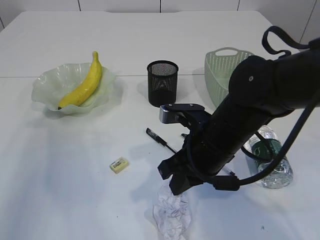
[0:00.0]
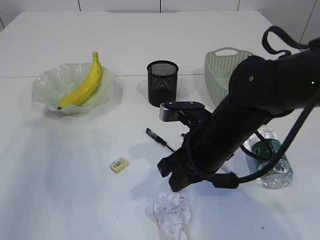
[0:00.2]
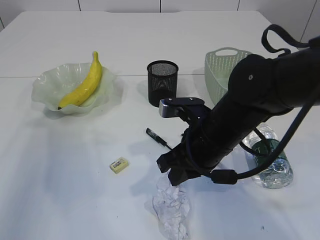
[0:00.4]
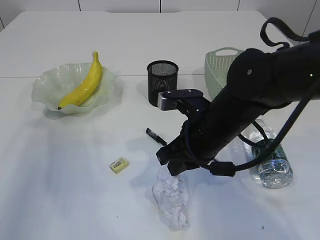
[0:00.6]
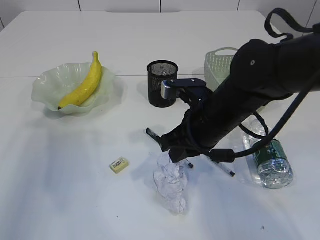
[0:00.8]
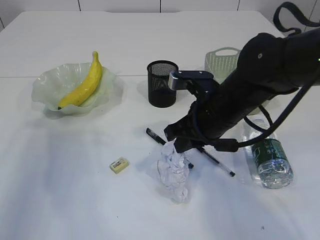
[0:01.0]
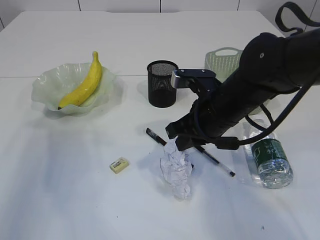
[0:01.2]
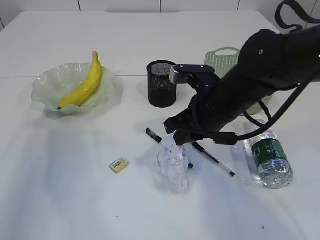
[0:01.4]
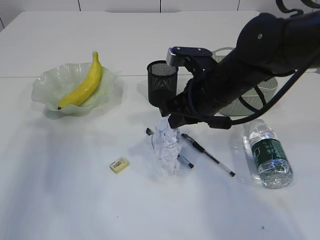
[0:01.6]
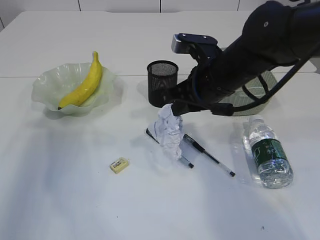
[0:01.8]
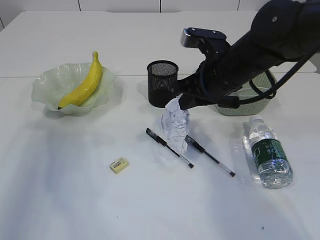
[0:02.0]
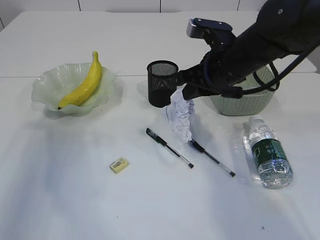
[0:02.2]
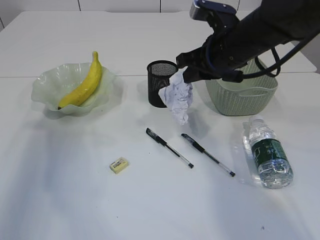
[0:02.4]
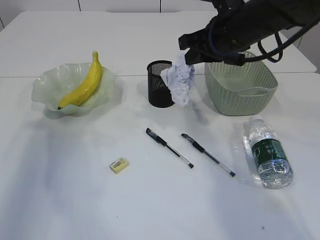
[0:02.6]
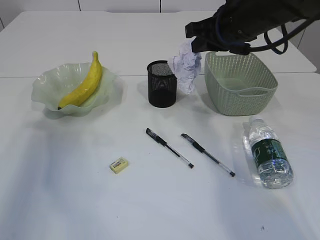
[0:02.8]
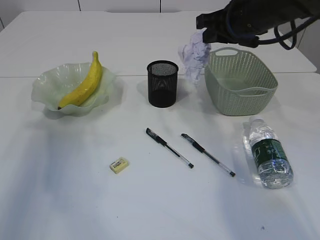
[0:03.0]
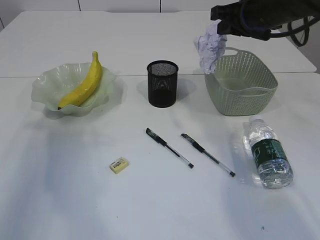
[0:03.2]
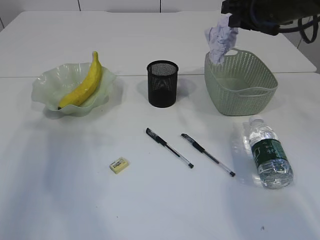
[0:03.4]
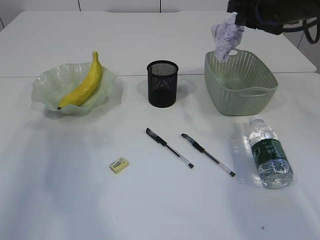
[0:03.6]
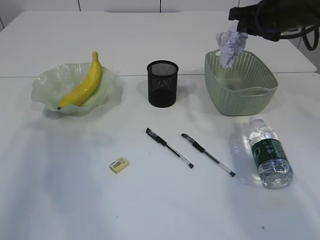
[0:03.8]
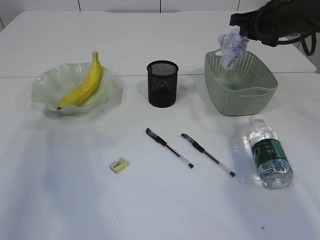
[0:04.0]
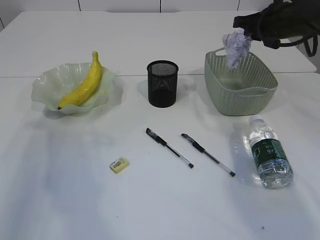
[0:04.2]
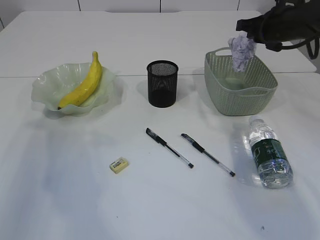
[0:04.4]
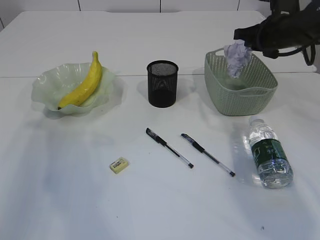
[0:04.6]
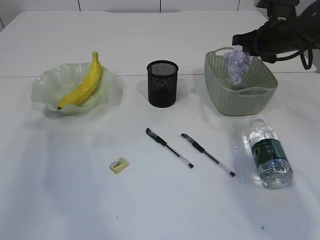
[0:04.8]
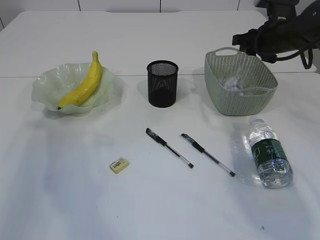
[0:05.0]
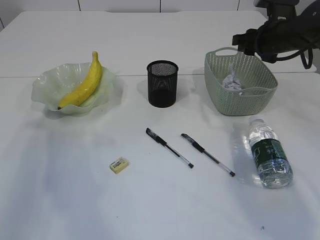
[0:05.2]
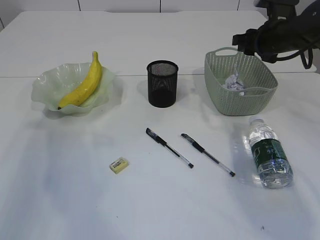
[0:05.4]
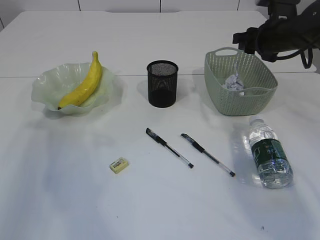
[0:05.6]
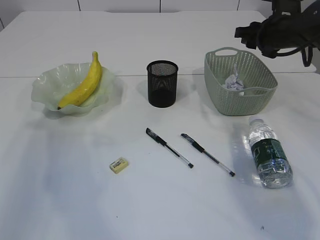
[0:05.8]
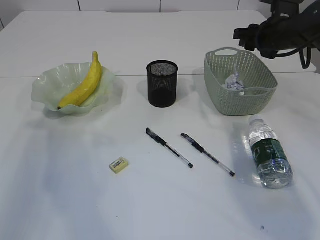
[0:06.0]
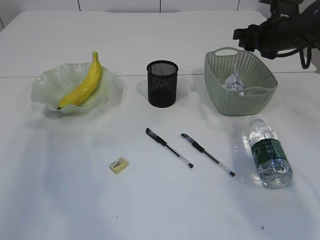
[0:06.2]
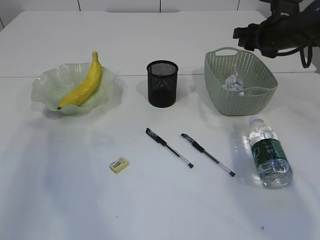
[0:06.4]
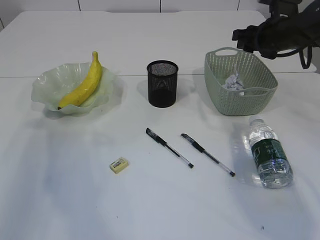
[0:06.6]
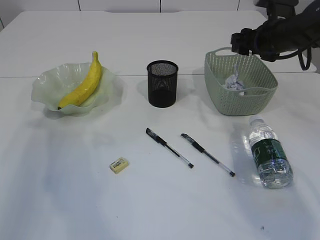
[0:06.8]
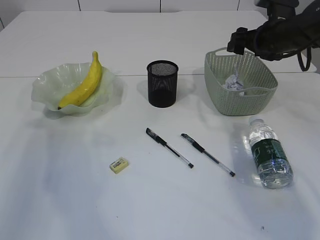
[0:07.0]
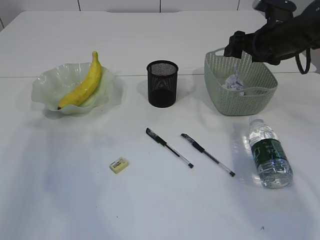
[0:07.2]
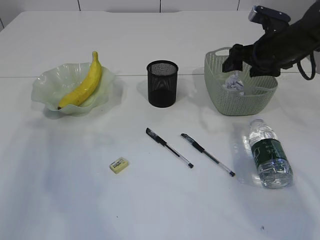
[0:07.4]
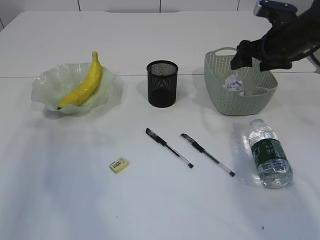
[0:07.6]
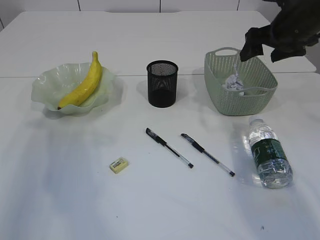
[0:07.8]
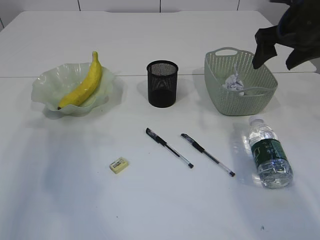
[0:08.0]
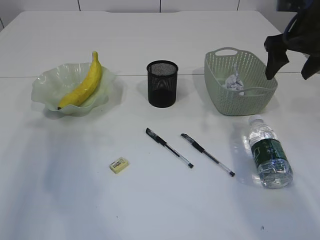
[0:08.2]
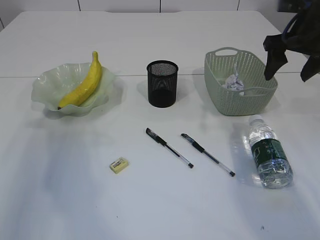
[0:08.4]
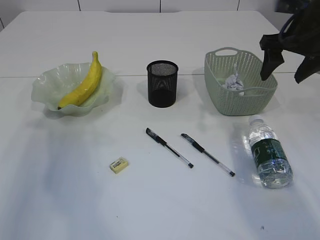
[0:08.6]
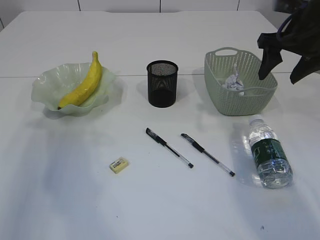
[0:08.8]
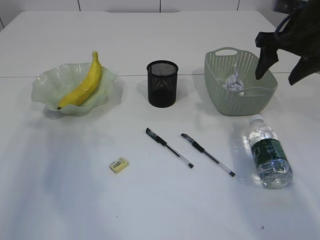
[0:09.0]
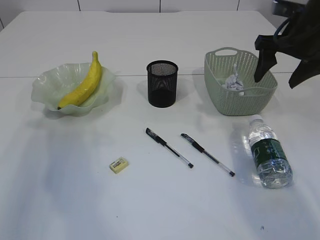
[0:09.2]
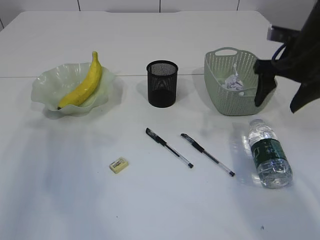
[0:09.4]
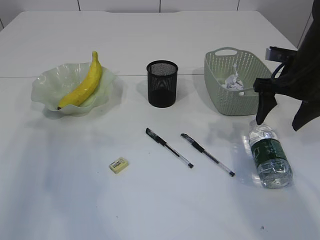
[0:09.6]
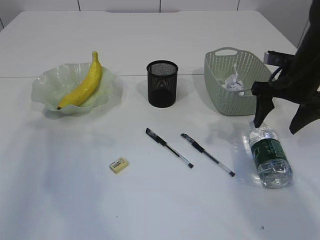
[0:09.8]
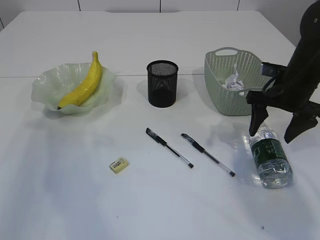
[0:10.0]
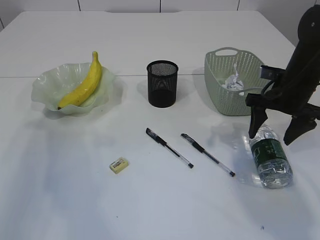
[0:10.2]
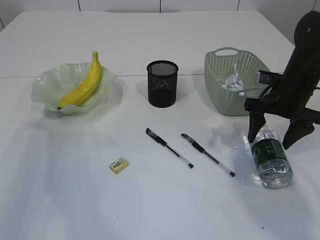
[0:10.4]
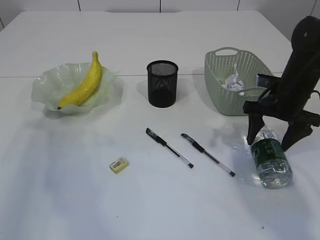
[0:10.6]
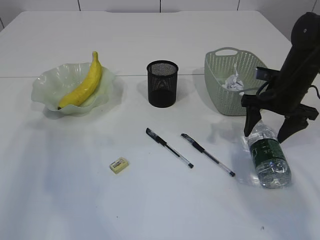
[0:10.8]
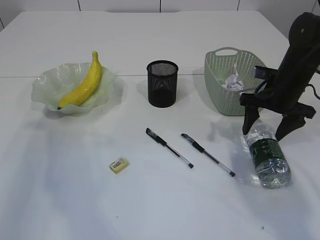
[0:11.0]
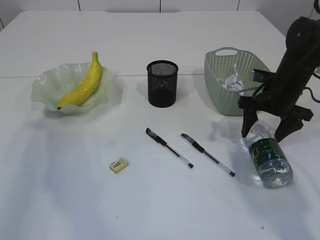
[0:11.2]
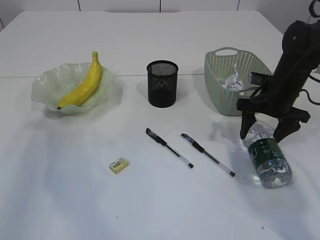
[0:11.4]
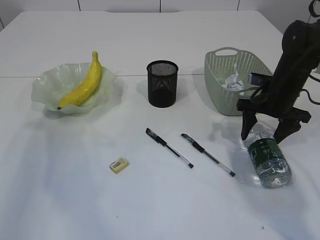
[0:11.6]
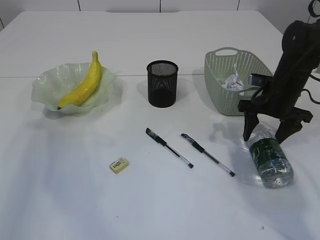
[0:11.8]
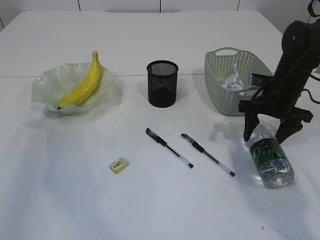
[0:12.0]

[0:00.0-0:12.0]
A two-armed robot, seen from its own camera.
Step, 0:01.6 to 0:05.6: Place the waste paper in the basket.
0:00.0 to 0:01.6: The right gripper shifts about 5 cm forward.
0:01.6 to 0:03.0: The right gripper shifts approximately 15 cm upward, forward and to the right.
0:03.0 to 0:04.4: The right gripper travels to the right by approximately 10 cm.
0:04.4 to 0:06.0: The right gripper opens.
0:06.0 to 0:07.6: The right gripper opens its fingers.
0:07.6 to 0:09.0: The right gripper is displaced upward by some 5 cm.
0:09.0 to 0:10.4: The right gripper moves downward, roughly 10 cm.
0:10.4 to 0:12.0: The grippers make only small movements.

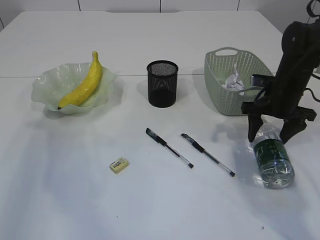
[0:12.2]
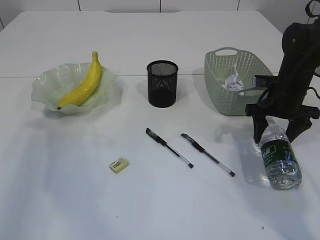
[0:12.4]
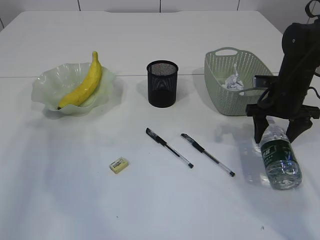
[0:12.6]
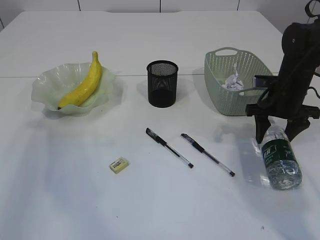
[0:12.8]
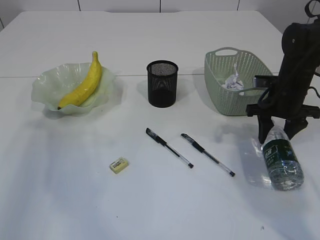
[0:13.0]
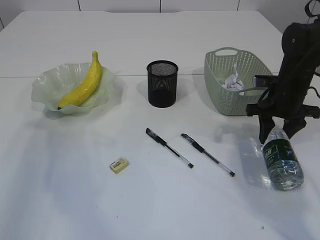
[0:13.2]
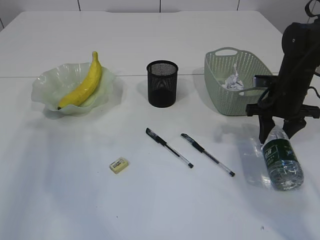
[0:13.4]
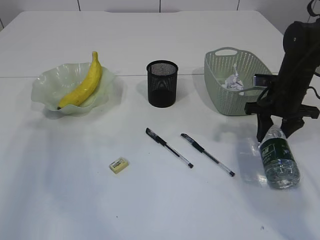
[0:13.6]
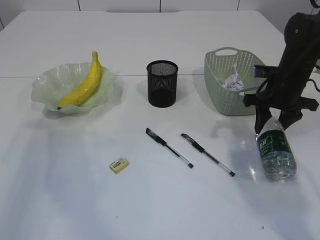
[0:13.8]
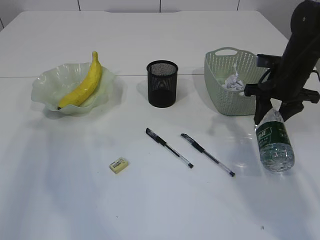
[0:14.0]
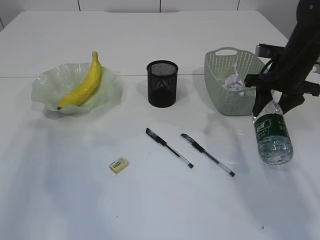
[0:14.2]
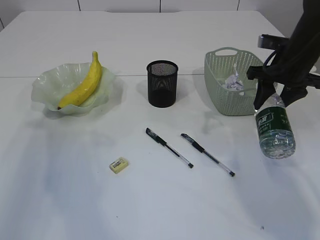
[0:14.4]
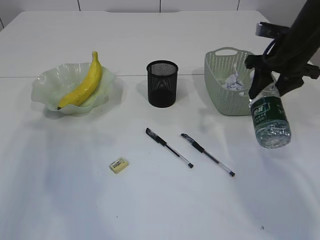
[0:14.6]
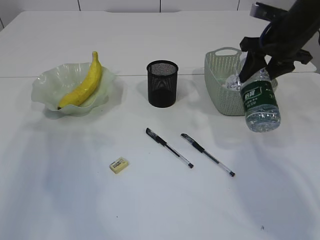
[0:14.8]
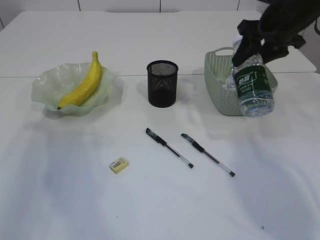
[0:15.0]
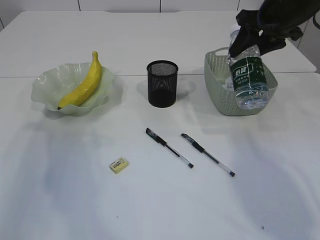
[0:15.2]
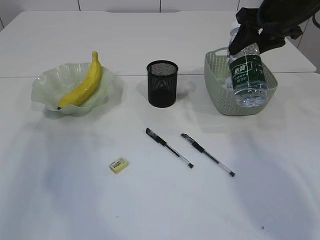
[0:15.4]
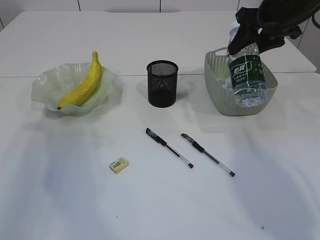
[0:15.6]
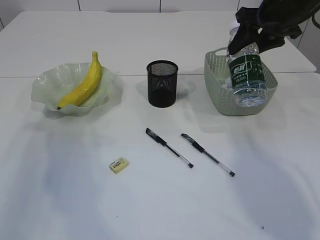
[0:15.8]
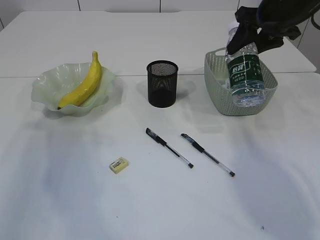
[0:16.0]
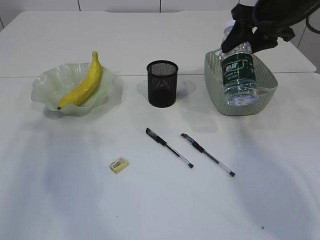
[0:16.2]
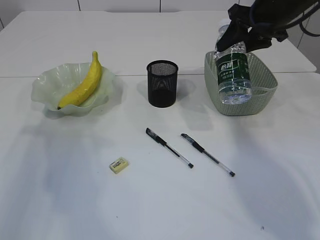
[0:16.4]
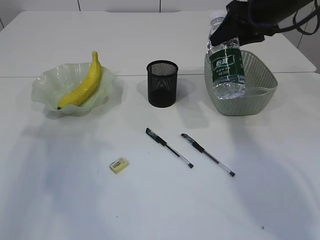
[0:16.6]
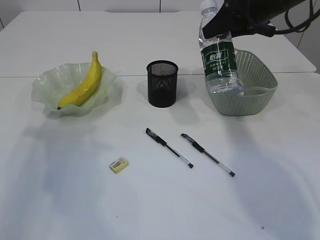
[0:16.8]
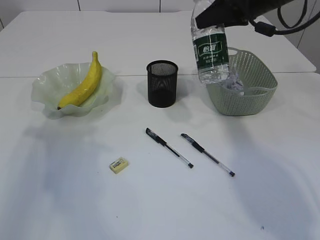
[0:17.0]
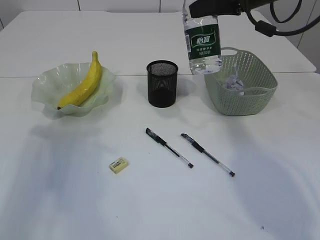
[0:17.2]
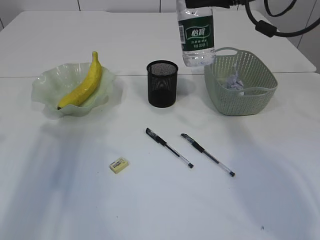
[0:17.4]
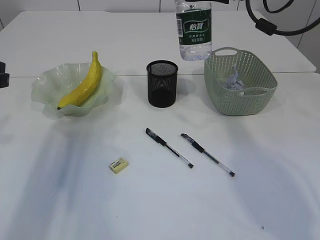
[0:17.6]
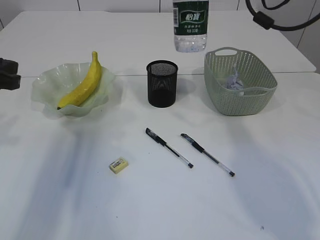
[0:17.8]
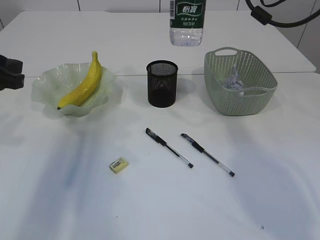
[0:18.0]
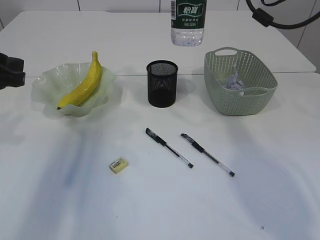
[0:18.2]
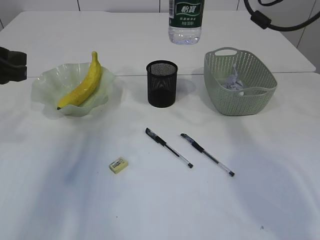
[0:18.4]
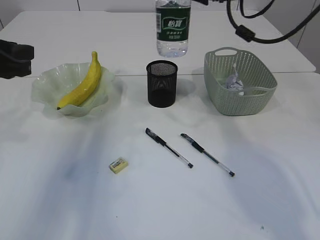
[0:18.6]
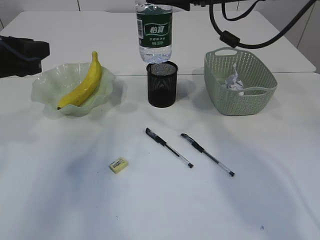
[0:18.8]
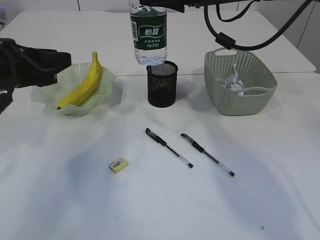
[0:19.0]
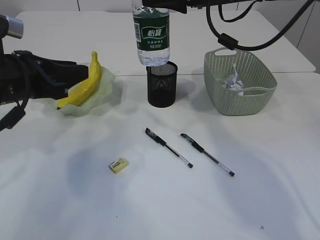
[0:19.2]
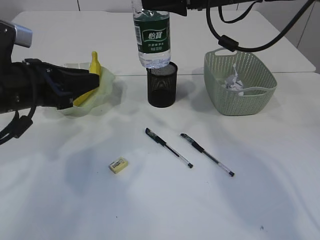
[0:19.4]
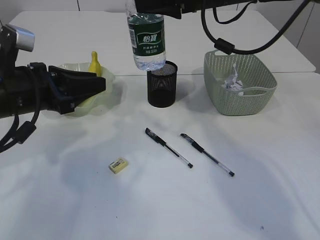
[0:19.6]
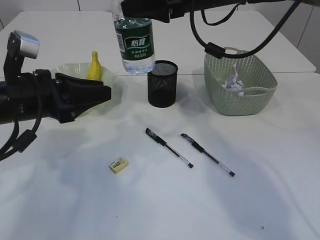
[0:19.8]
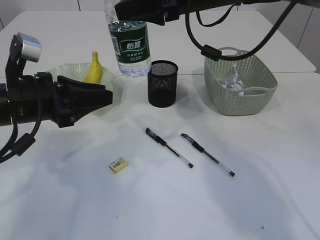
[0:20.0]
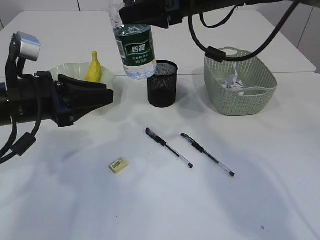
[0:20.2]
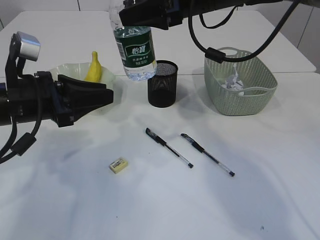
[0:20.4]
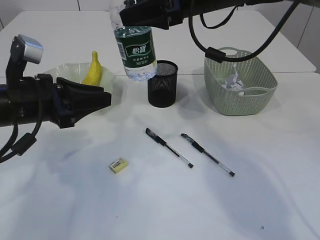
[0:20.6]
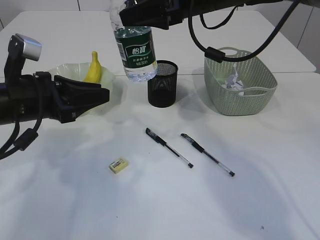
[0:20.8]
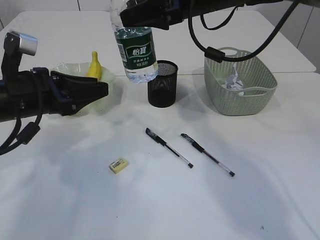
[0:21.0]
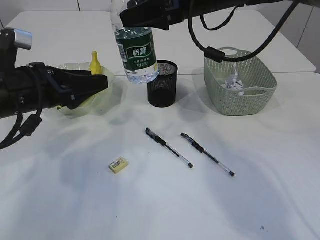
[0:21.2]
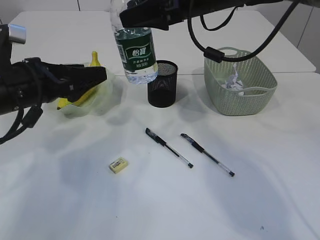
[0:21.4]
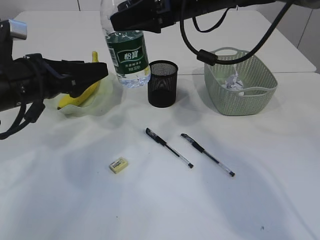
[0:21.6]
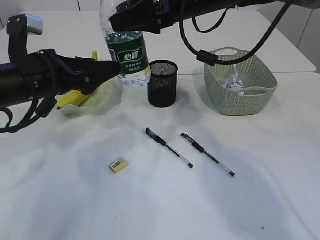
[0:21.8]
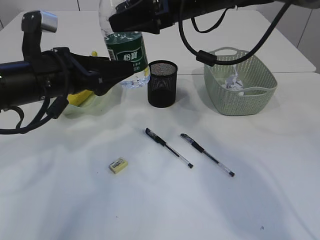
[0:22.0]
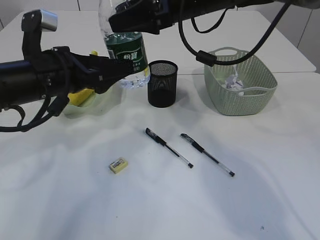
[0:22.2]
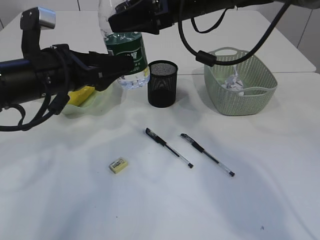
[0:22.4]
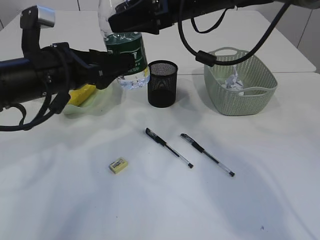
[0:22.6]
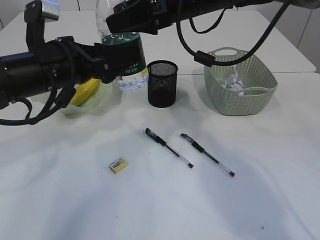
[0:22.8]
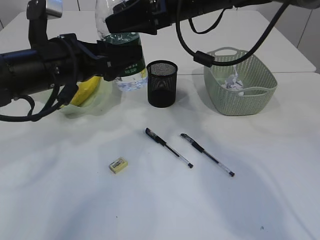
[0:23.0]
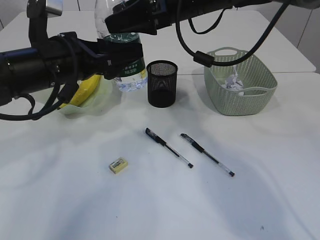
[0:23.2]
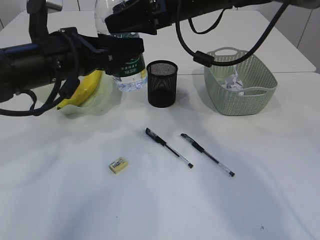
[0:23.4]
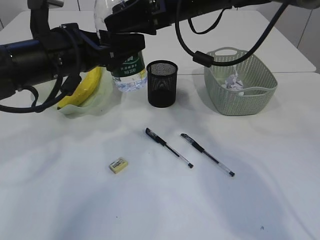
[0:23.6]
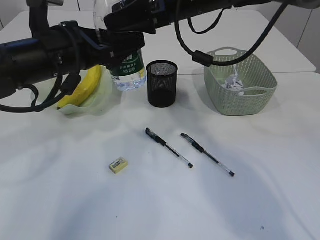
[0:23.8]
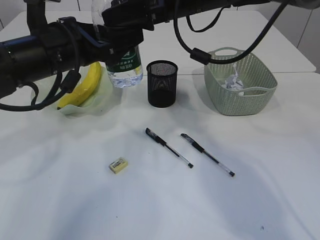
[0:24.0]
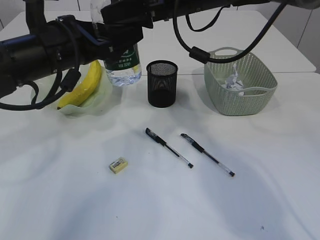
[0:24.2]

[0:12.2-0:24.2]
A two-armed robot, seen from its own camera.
0:12.2 to 0:13.8: The right gripper closes its fingers.
0:13.8 to 0:15.2: The right gripper shifts approximately 15 cm upward.
0:15.2 to 0:16.6: There are only small adjustments of the grippers.
0:16.6 to 0:18.2: The left gripper travels to the right by approximately 5 cm. The right gripper shifts about 5 cm upward.
0:18.2 to 0:19.8: The right gripper shifts roughly 10 cm to the left, while the left gripper goes approximately 10 cm to the right and downward.
0:19.8 to 0:21.2: The left gripper opens its fingers.
0:21.2 to 0:22.6: The left gripper opens up.
0:22.6 to 0:24.2: The grippers make only small movements.
